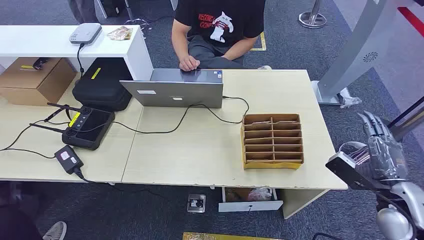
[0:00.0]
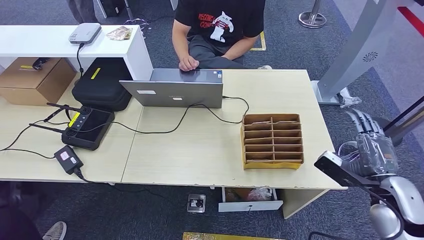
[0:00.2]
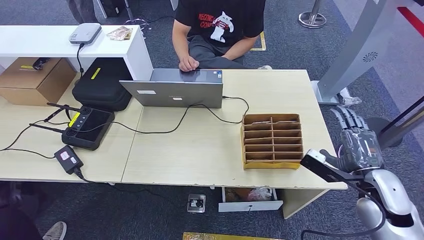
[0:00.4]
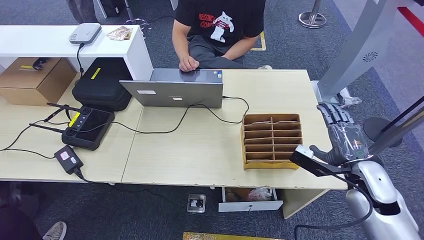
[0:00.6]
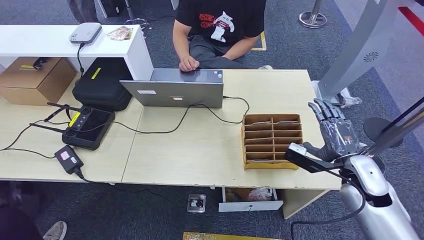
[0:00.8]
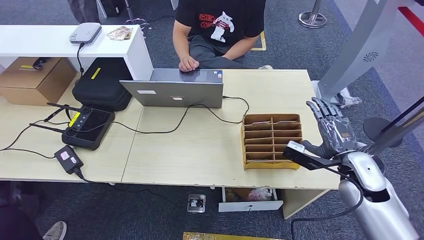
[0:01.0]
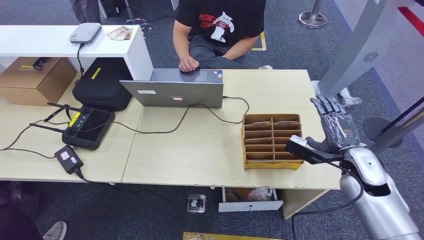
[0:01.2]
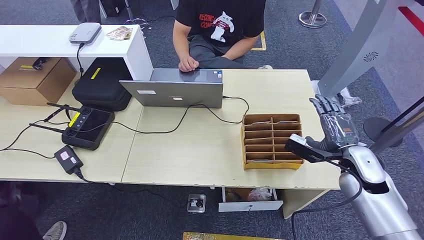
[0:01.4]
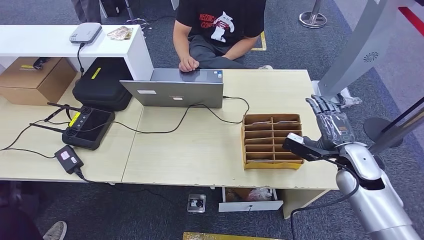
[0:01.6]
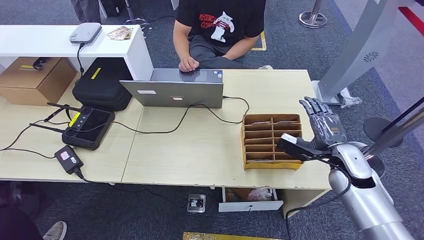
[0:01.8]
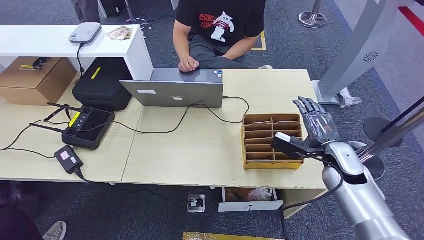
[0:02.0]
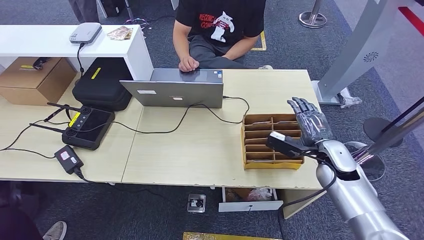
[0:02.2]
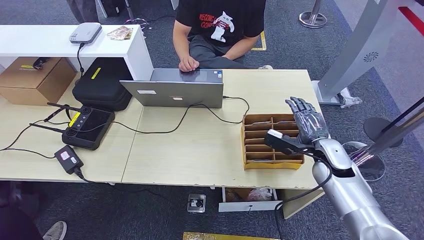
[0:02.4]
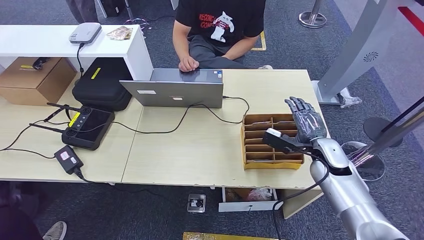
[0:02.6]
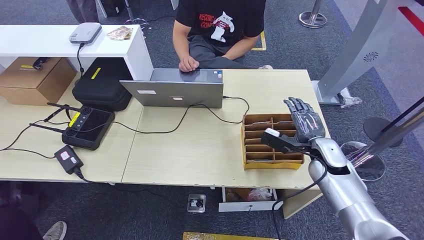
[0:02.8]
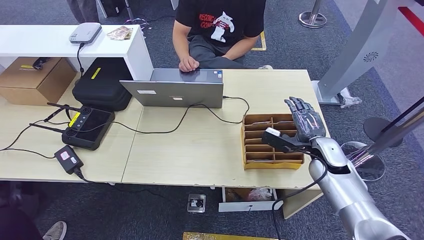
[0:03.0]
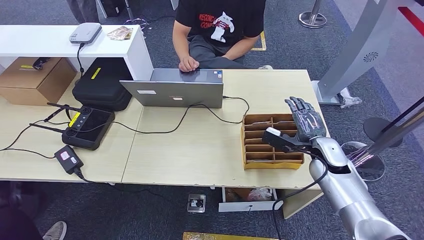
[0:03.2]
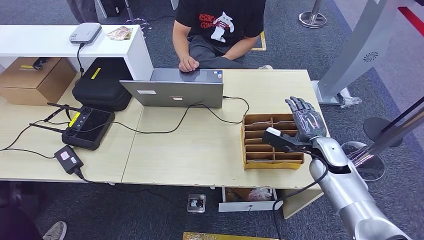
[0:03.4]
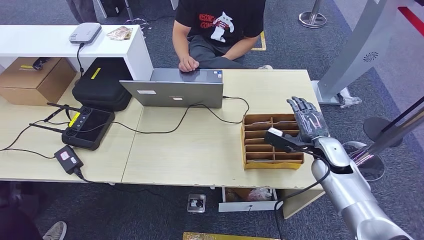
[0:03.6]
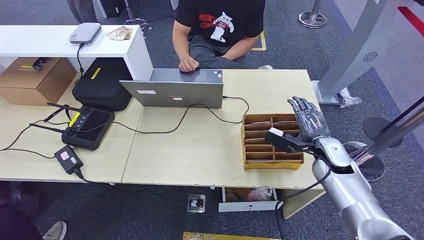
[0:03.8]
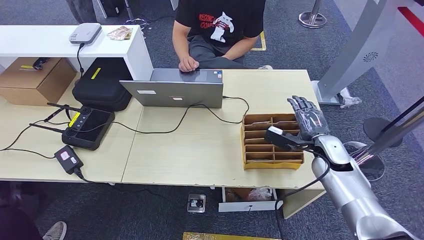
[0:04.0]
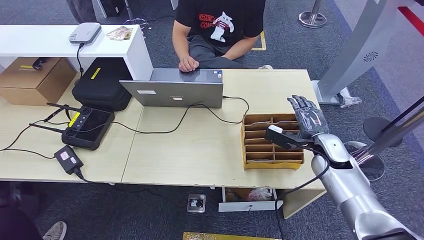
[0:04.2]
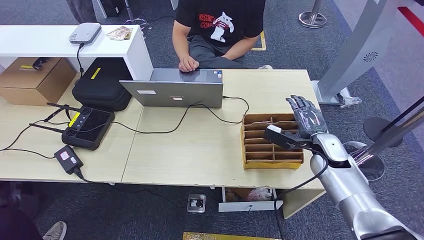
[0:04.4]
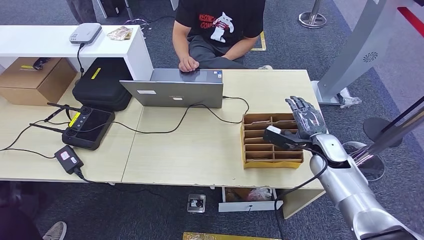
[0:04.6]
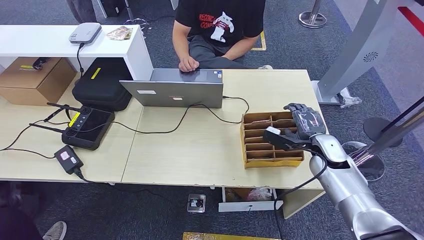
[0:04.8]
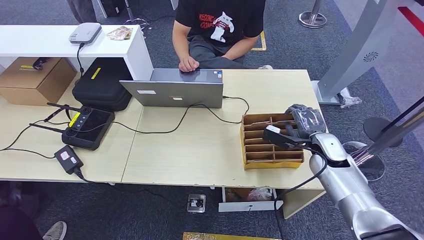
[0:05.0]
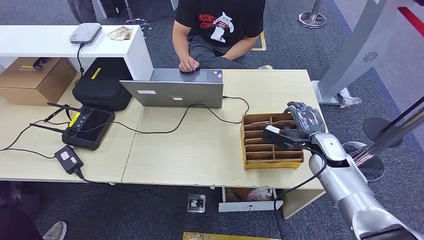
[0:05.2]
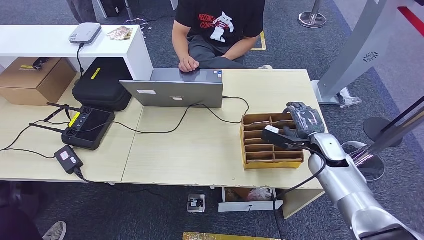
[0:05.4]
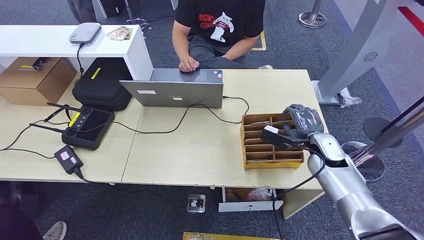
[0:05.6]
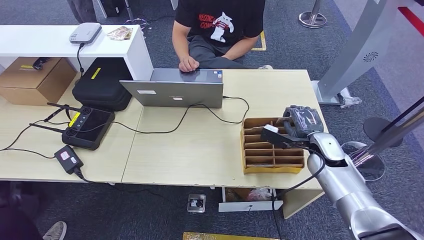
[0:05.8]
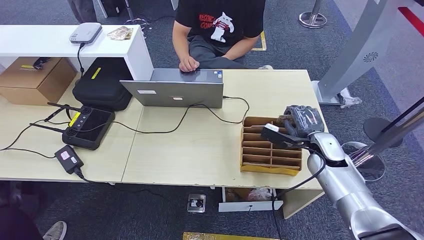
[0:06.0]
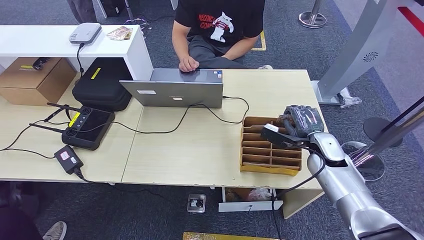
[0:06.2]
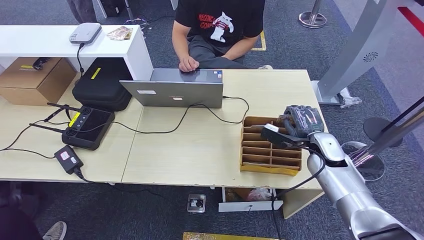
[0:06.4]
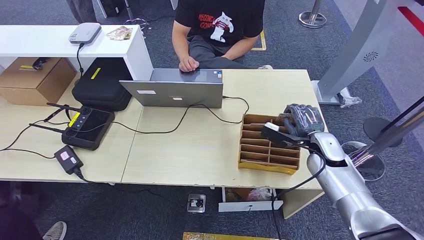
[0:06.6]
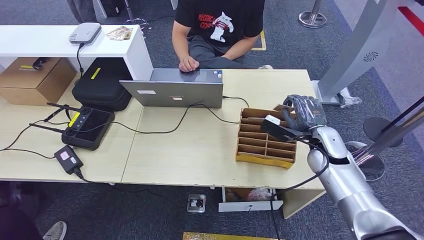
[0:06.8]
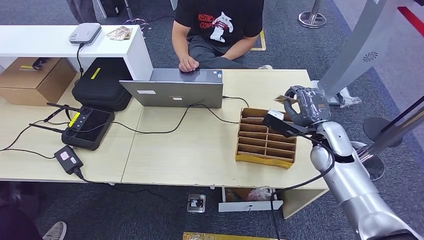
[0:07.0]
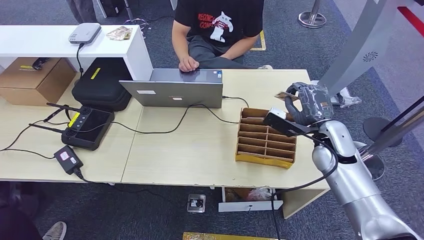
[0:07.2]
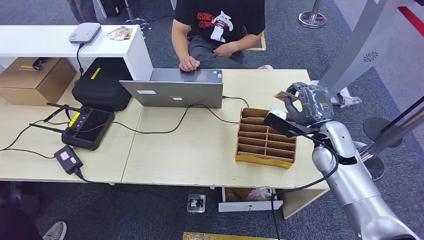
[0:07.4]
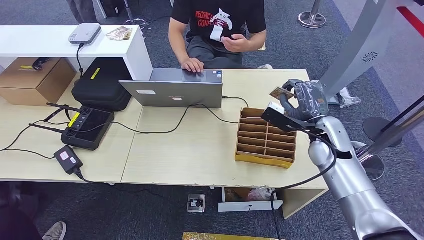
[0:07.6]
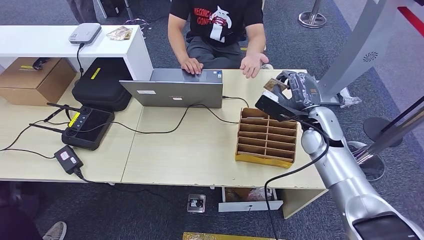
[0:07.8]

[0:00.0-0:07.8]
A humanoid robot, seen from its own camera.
Step, 0:00.0 to 0:06.8: Pick up the key card from the card box.
Step, 0:07.4 to 0:07.8: Hand the key card to the target.
0:01.6 to 0:03.2: The right hand shifts by some 5 cm.
0:03.2 to 0:04.6: The two hands keep their place.
0:04.6 to 0:06.2: Both hands stay put.
0:06.2 to 0:07.8: The right hand goes some 10 cm upward.
